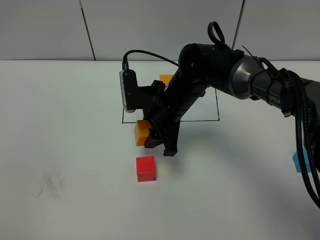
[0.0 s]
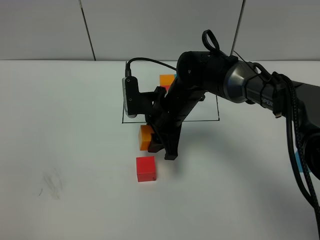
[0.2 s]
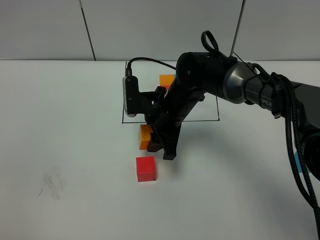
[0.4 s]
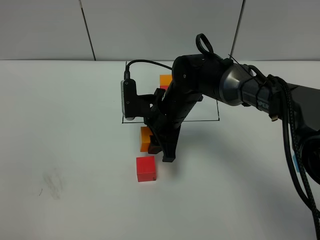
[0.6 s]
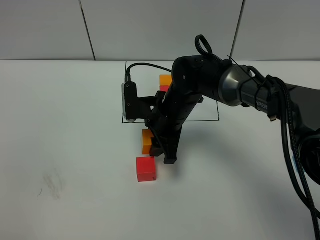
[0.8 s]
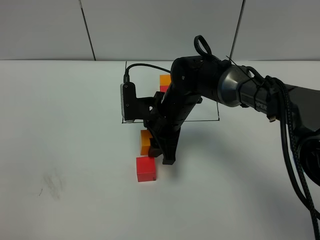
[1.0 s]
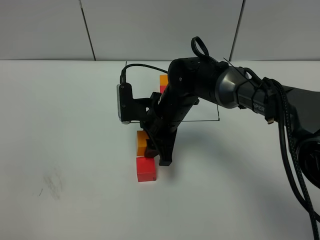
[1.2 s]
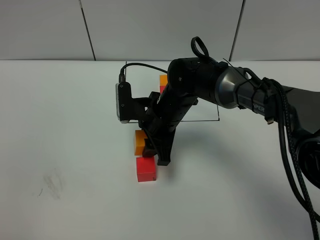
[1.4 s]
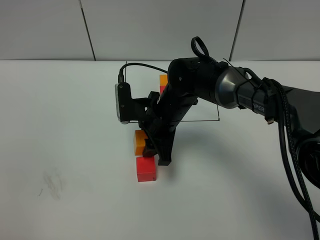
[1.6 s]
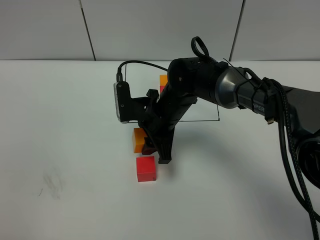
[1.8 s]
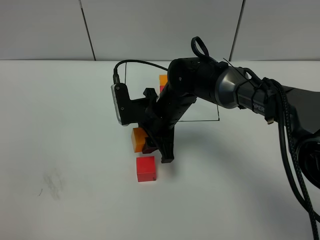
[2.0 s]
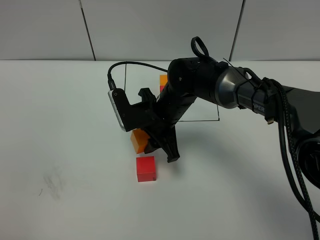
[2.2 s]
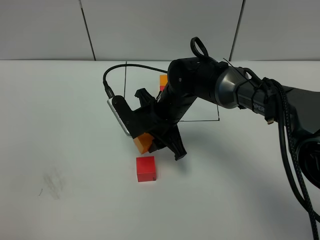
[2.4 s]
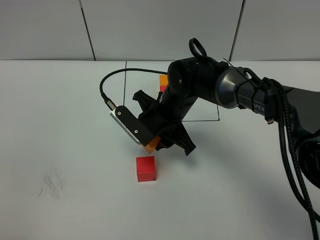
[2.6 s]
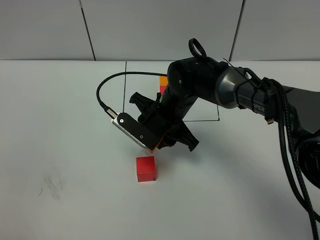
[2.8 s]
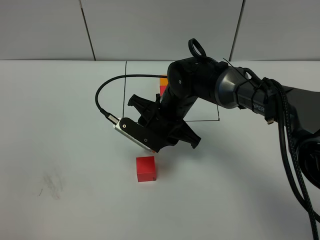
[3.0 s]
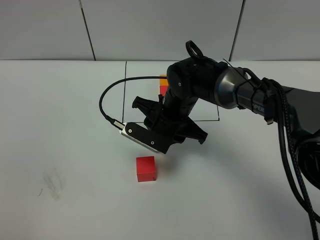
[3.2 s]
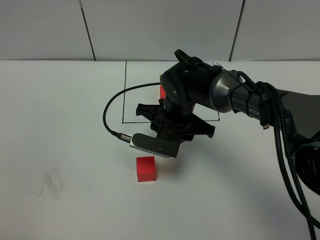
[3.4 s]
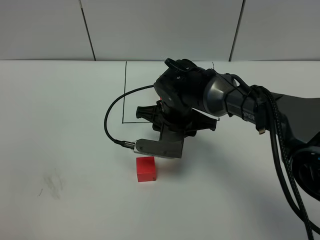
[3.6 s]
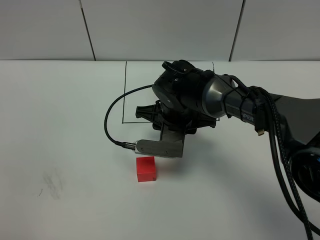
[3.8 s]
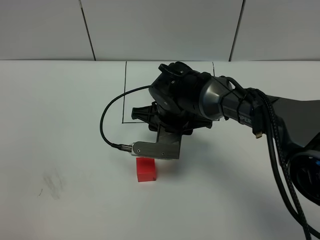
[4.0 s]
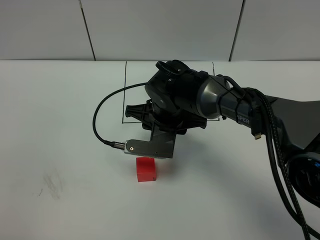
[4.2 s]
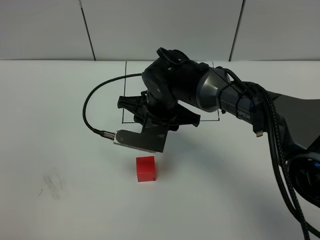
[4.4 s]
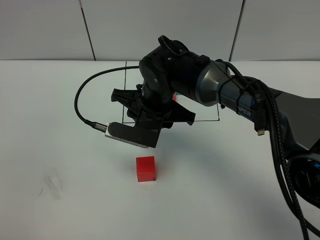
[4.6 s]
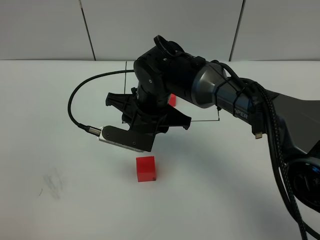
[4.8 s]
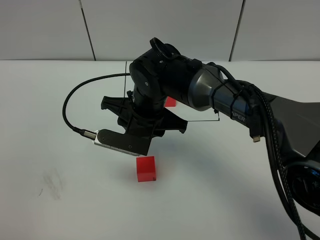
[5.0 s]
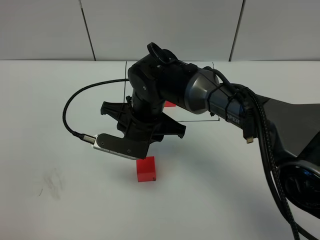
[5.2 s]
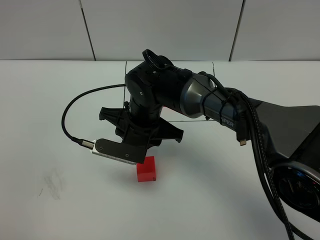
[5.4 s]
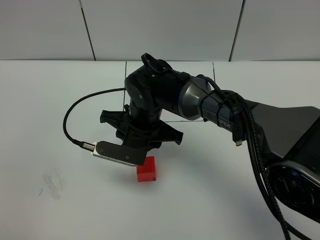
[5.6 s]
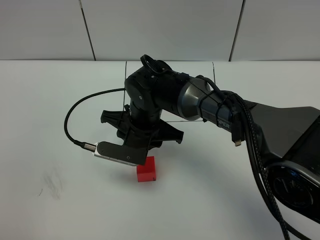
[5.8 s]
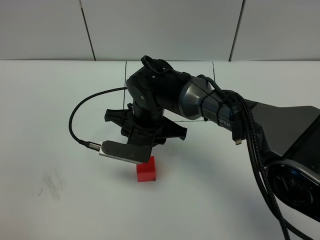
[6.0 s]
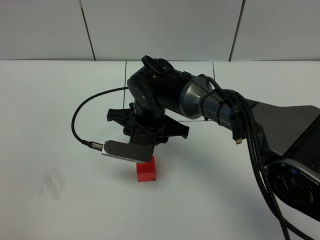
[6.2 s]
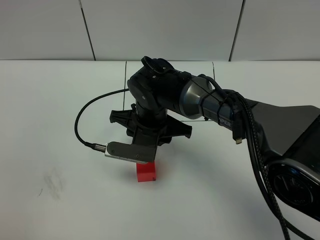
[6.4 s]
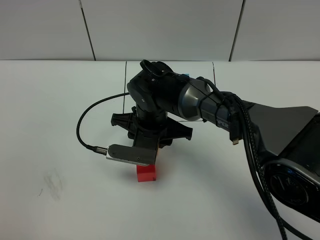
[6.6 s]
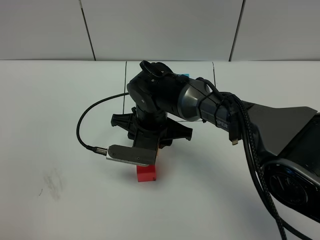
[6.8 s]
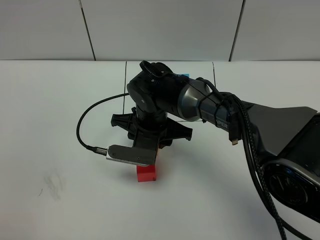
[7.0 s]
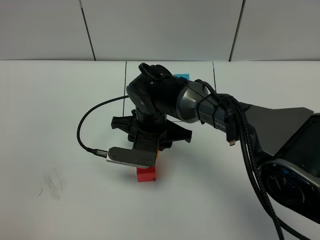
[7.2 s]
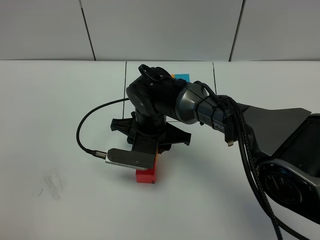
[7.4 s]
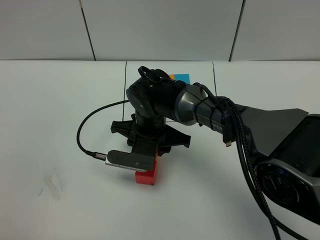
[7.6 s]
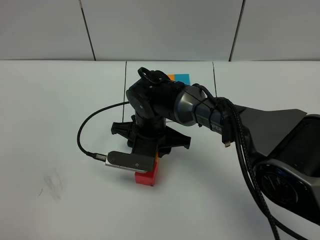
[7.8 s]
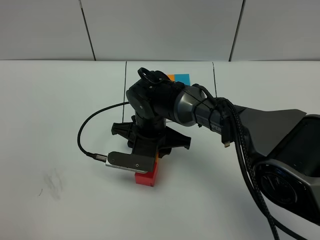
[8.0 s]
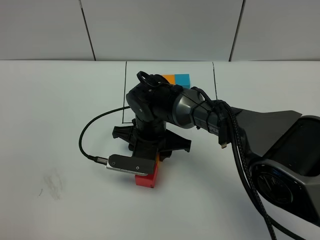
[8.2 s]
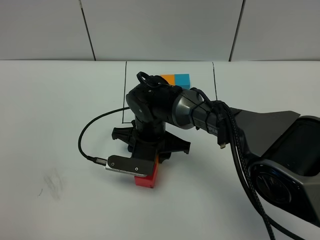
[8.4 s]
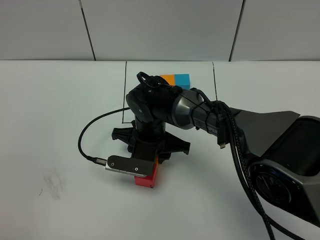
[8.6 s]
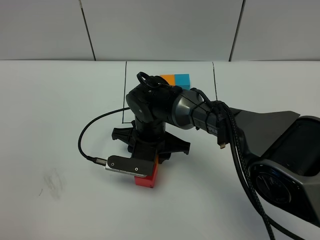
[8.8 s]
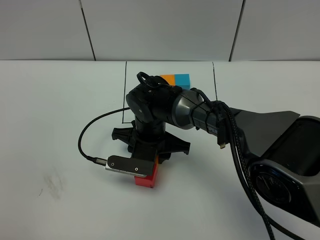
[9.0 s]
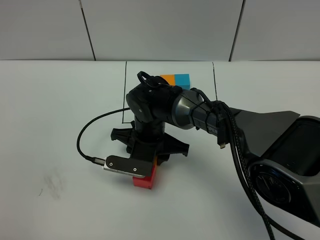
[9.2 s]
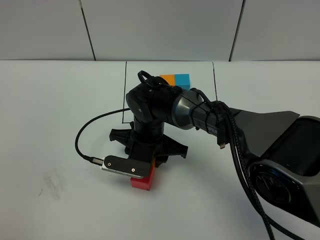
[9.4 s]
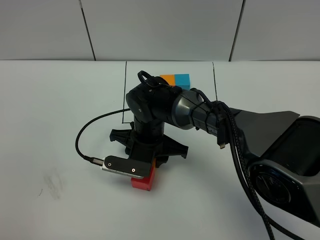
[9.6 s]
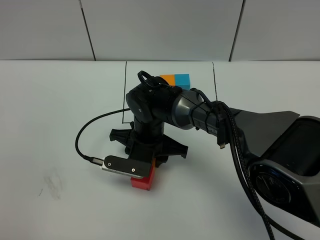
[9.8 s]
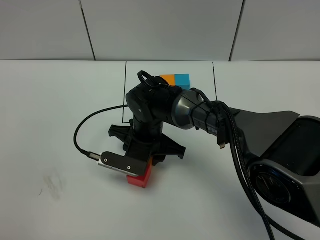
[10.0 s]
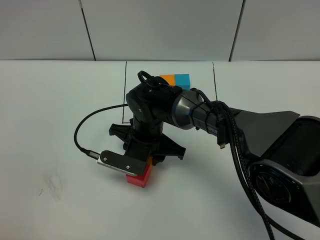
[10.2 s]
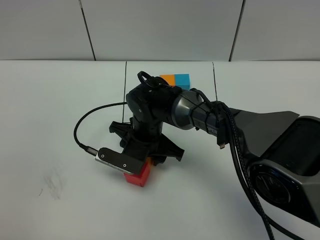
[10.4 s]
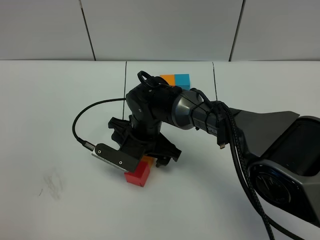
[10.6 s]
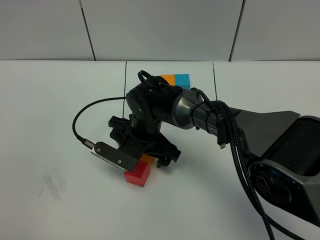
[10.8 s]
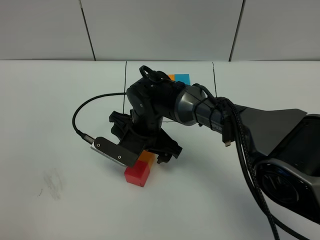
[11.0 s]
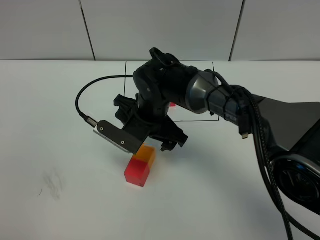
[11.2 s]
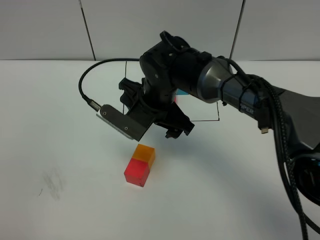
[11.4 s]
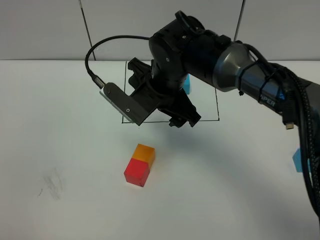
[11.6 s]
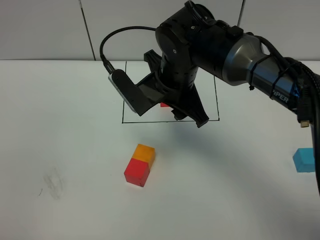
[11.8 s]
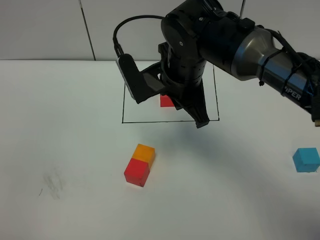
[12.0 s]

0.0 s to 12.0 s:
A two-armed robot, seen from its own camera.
Task of the whole recording: According to the building block template in front, assemble the scattered blocks together.
Step, 0.0 to 10.6 s: Put the orange cube on the behind of the red cube.
0.0 to 1.6 s: The grippers stay close to where they were, moving slightly.
4.4 to 7.6 s: The grippers make only small movements.
7.6 to 10.4 s: The grippers stay close to where they were, moving slightly.
10.4 to 12.0 s: The right gripper is displaced upward and to the right by about 15 cm, and closes.

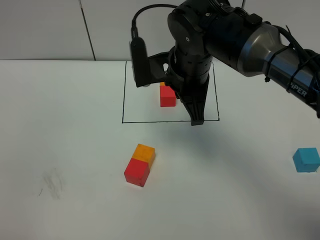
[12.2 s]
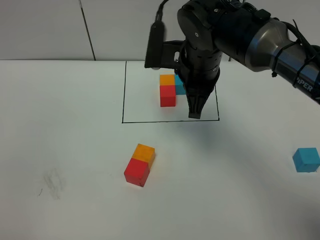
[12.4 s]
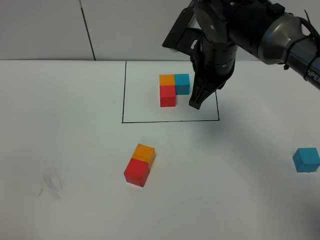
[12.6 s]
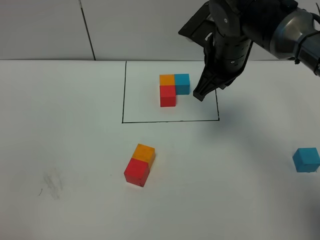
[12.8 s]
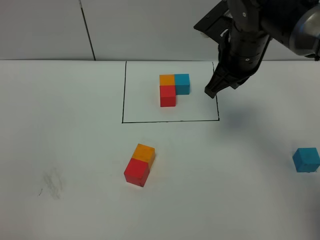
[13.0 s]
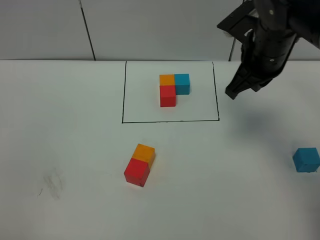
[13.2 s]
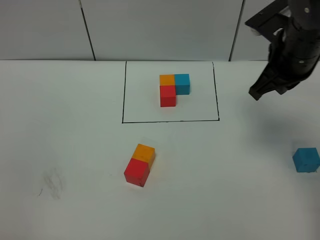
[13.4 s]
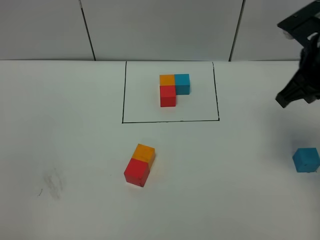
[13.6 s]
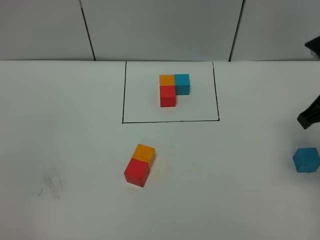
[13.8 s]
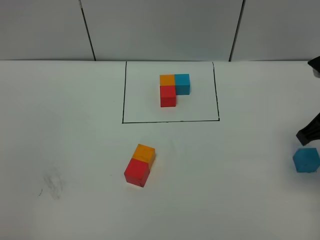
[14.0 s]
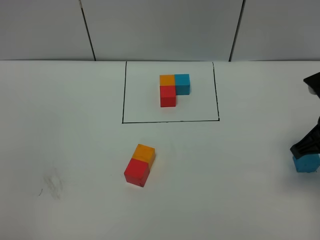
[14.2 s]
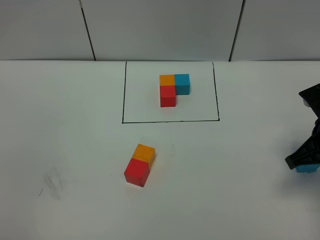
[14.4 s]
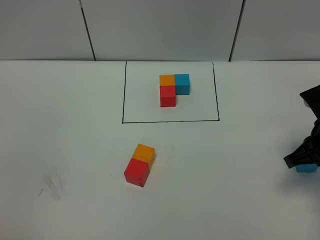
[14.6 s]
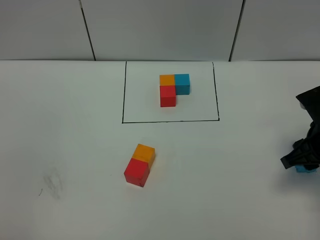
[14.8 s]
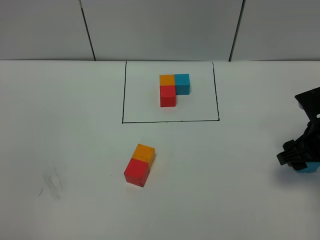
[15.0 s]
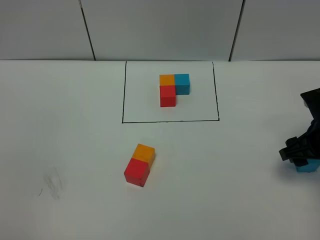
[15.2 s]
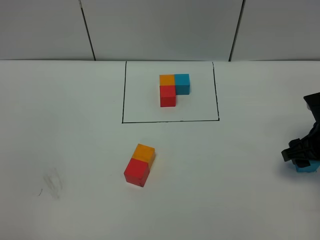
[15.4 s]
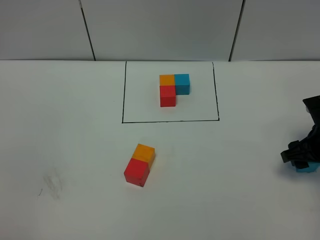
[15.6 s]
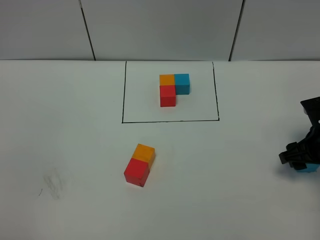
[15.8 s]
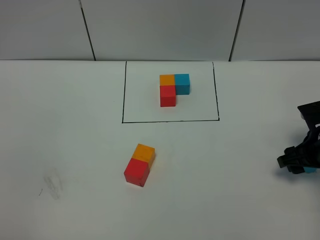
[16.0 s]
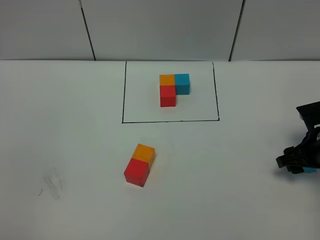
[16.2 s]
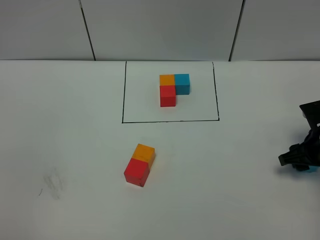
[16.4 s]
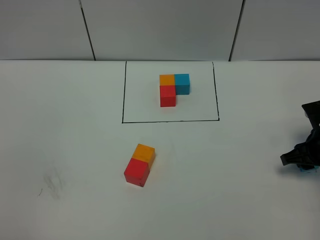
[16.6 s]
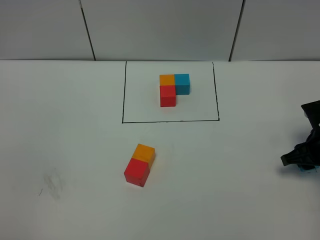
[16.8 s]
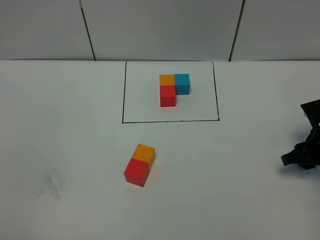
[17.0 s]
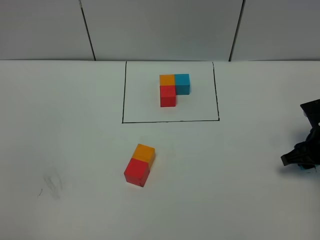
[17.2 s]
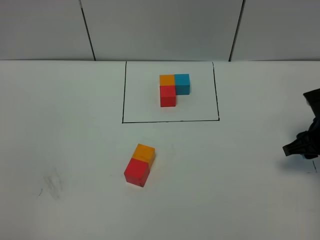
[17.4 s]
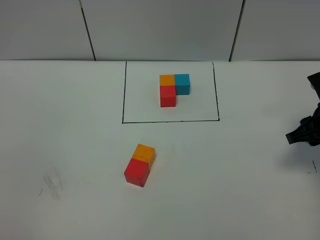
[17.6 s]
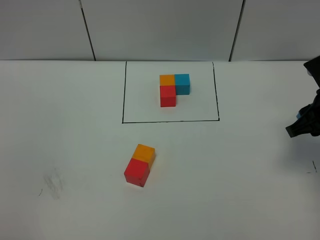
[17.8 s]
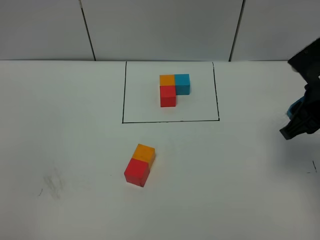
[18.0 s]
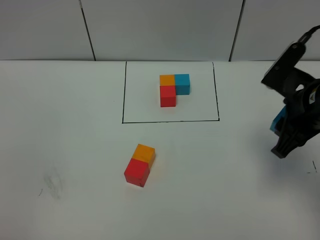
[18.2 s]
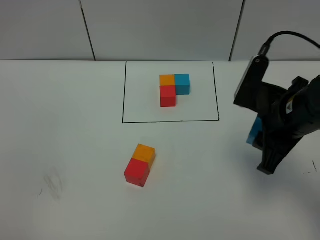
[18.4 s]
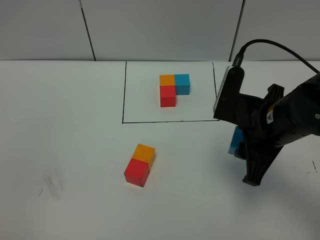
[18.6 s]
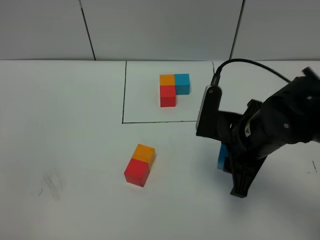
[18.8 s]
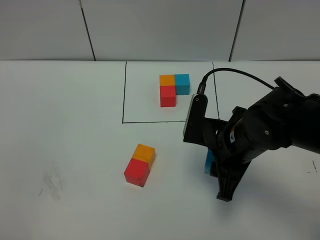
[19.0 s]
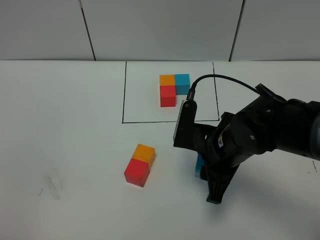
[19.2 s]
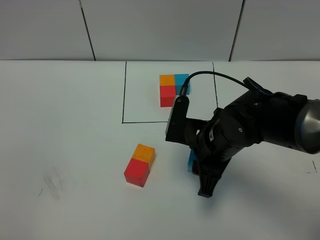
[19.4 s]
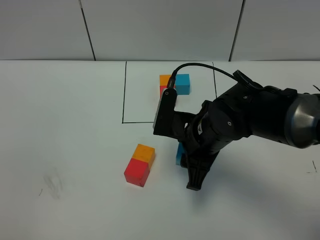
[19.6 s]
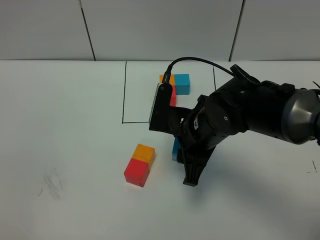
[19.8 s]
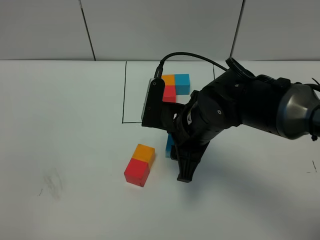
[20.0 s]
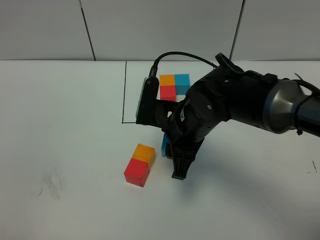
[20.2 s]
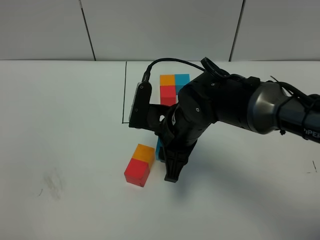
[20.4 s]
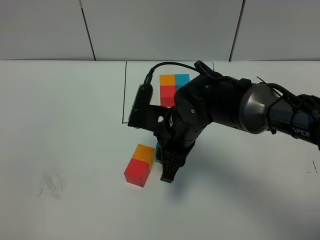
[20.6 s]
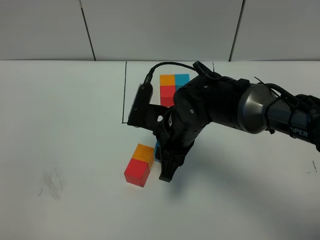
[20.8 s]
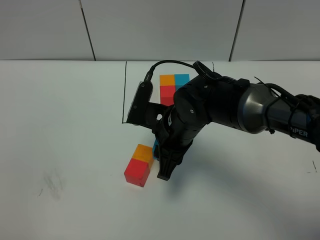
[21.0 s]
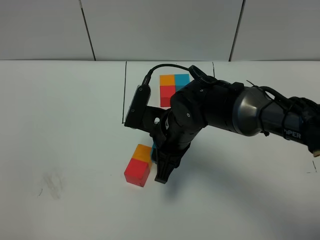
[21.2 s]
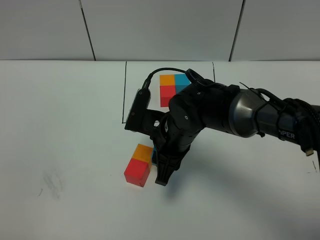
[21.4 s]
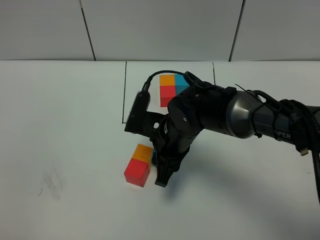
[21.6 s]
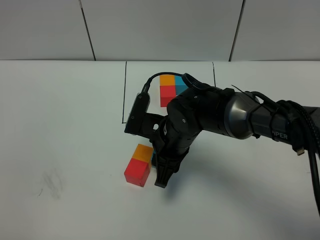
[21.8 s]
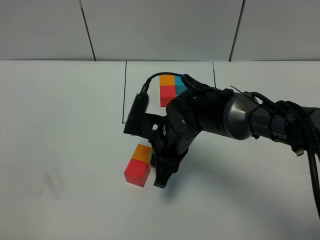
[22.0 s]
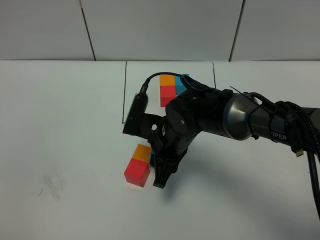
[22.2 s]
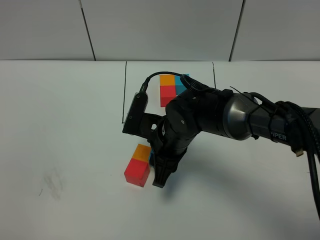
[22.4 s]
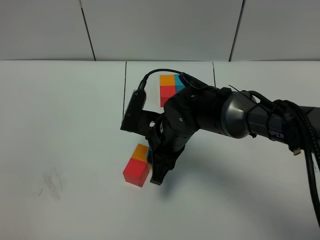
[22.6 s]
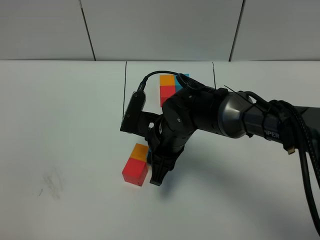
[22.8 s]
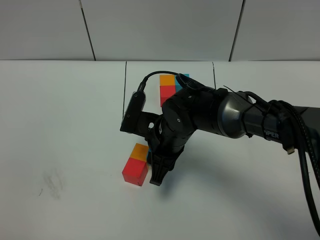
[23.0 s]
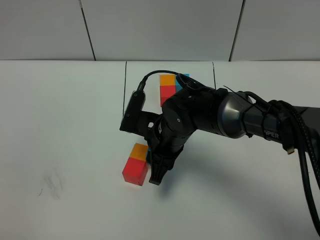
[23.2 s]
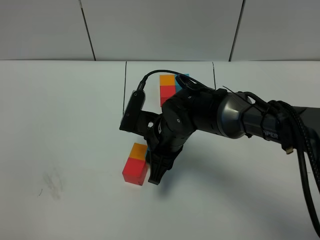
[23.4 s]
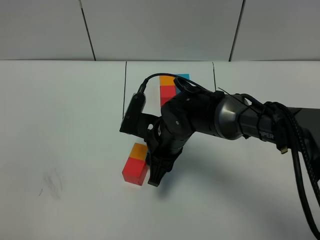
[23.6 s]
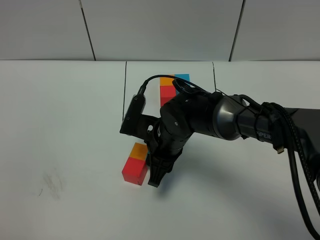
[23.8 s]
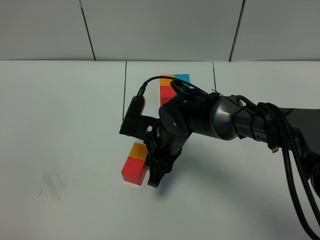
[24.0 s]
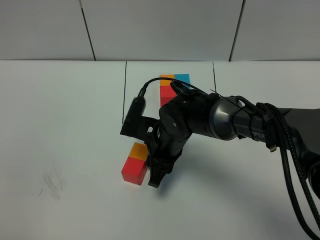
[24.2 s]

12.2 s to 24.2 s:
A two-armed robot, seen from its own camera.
Task of the whole recording: According to the building block template in front, assemble the scattered blocks together.
12.2 to 13.8 s: The right gripper travels to the right by roughly 20 cm.
13.8 to 15.2 s: The right gripper moves downward, approximately 15 cm, and opens.
15.2 to 16.6 s: The right gripper ends up roughly 5 cm from where it was.
16.6 to 18.2 s: The right gripper goes roughly 15 cm upward and to the left.
18.2 to 19.8 s: The right gripper travels to the left by about 15 cm.
19.8 to 21.2 s: The right gripper moves roughly 5 cm.
21.2 to 24.2 s: The grippers make only small movements.
